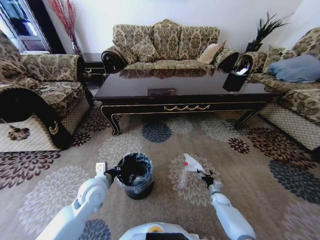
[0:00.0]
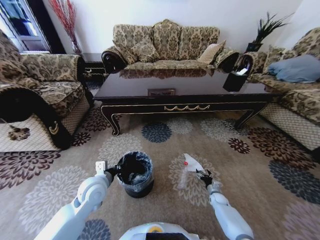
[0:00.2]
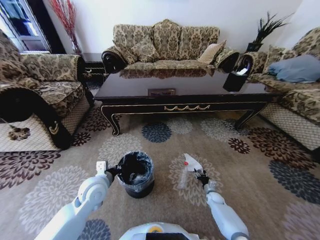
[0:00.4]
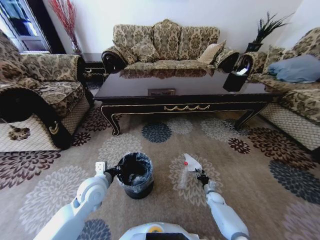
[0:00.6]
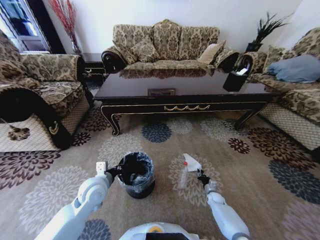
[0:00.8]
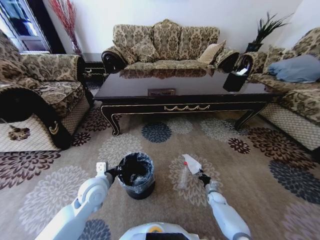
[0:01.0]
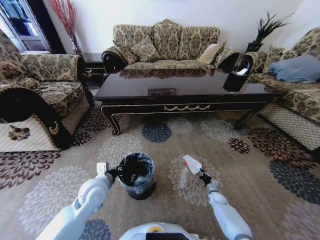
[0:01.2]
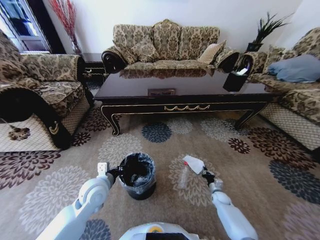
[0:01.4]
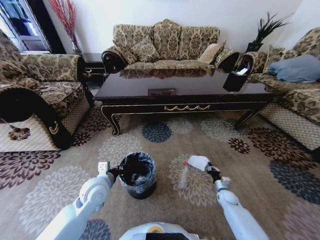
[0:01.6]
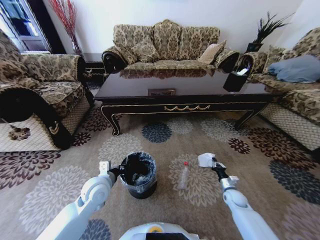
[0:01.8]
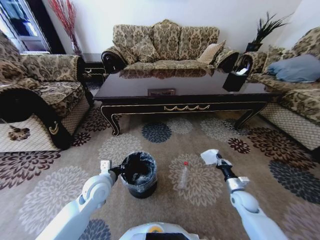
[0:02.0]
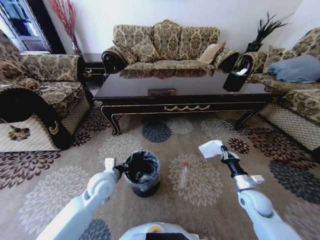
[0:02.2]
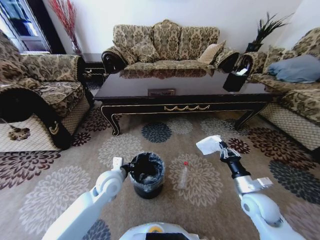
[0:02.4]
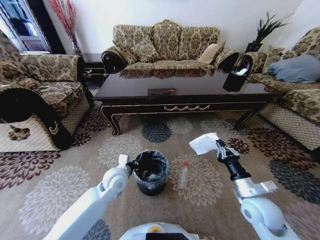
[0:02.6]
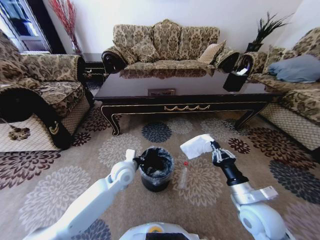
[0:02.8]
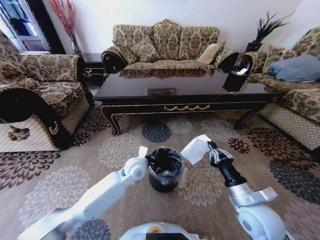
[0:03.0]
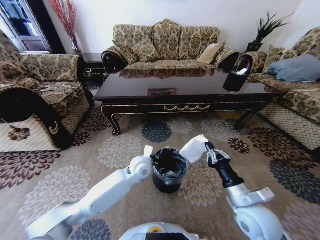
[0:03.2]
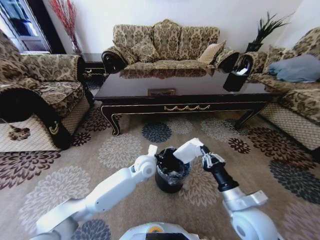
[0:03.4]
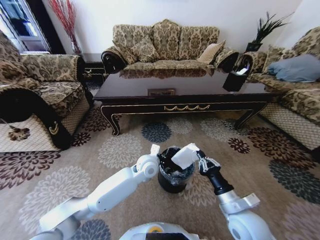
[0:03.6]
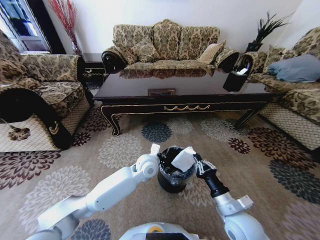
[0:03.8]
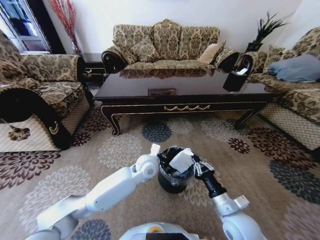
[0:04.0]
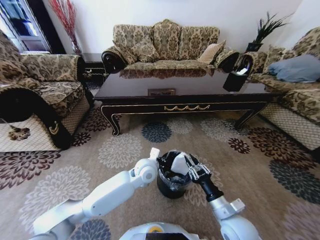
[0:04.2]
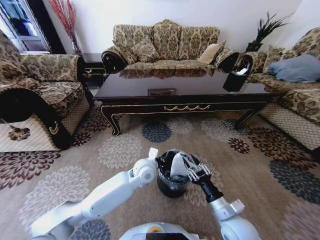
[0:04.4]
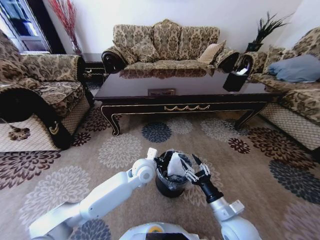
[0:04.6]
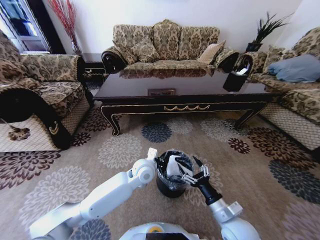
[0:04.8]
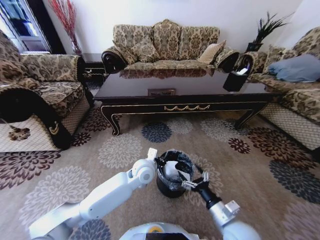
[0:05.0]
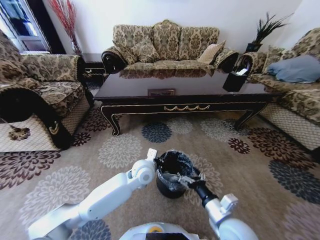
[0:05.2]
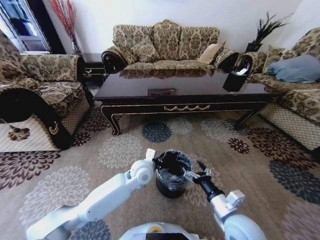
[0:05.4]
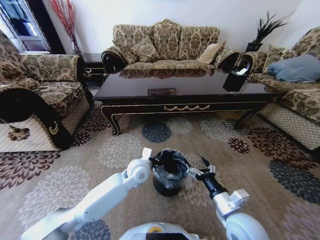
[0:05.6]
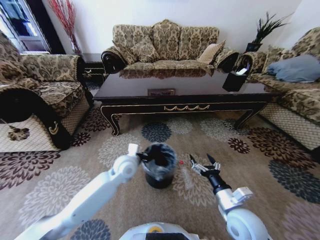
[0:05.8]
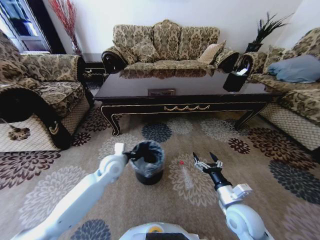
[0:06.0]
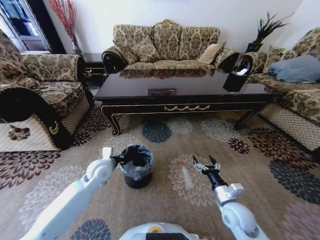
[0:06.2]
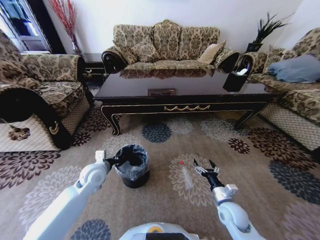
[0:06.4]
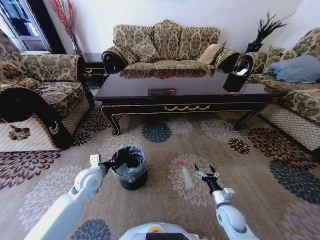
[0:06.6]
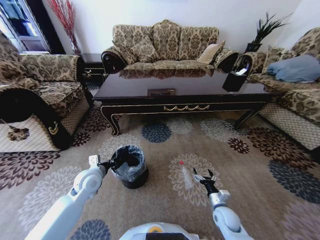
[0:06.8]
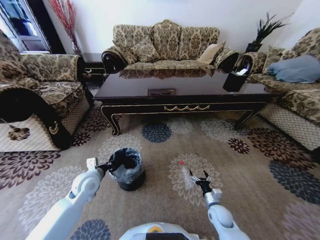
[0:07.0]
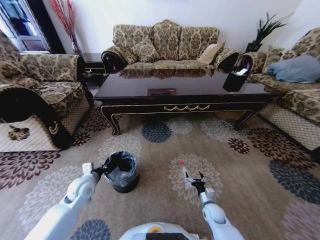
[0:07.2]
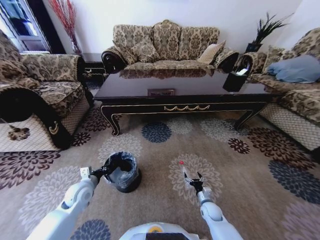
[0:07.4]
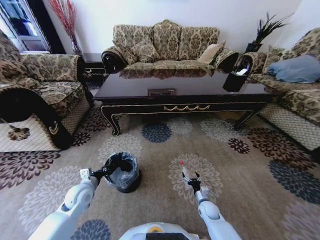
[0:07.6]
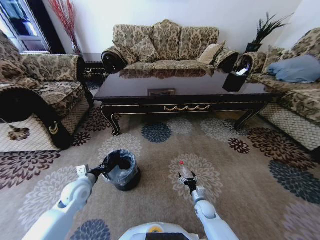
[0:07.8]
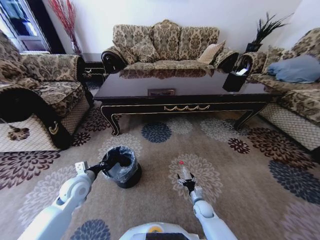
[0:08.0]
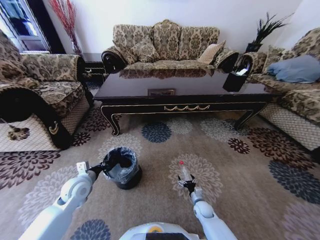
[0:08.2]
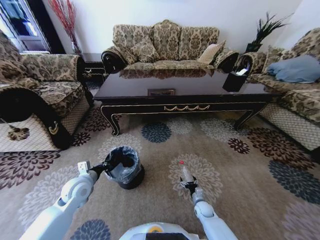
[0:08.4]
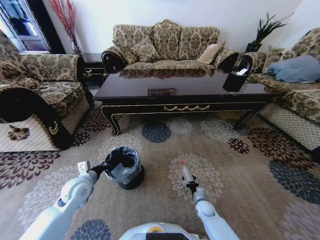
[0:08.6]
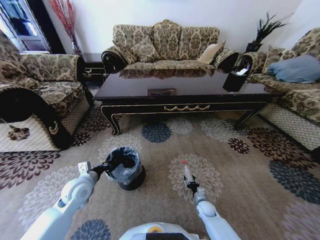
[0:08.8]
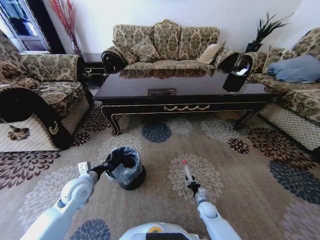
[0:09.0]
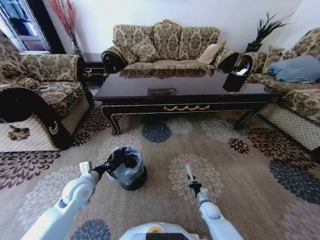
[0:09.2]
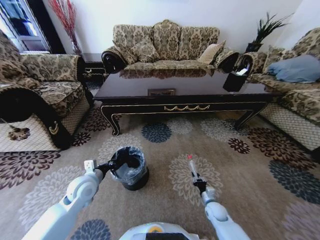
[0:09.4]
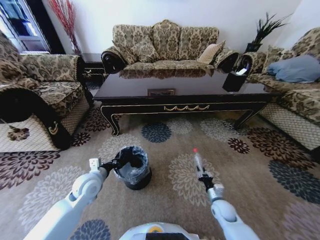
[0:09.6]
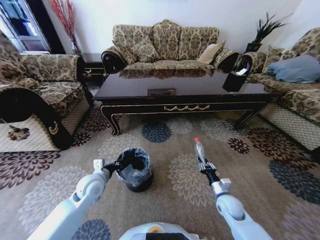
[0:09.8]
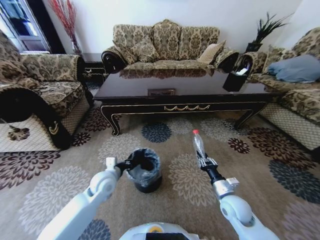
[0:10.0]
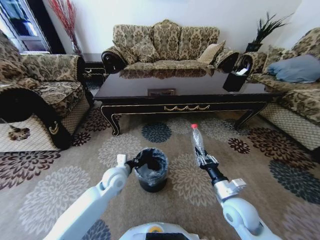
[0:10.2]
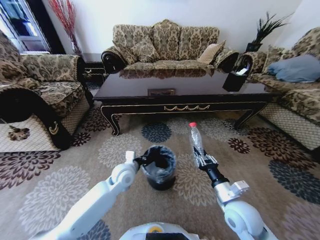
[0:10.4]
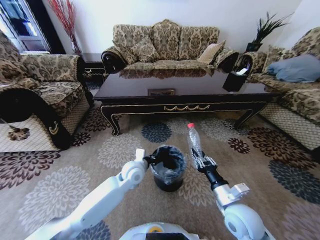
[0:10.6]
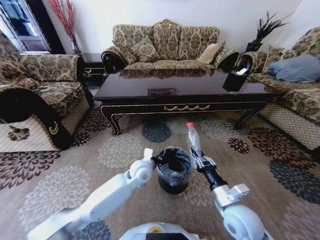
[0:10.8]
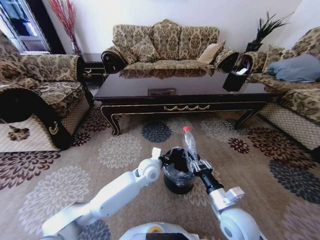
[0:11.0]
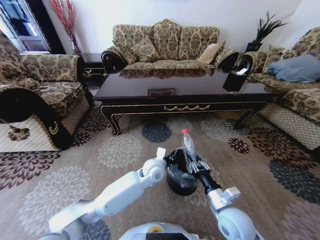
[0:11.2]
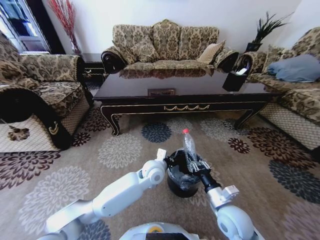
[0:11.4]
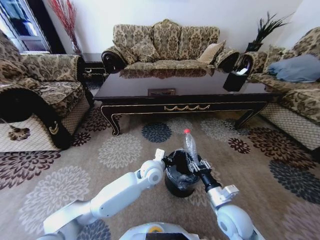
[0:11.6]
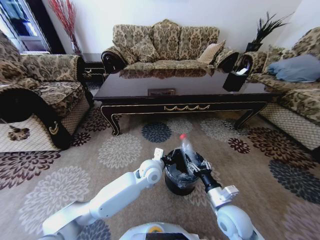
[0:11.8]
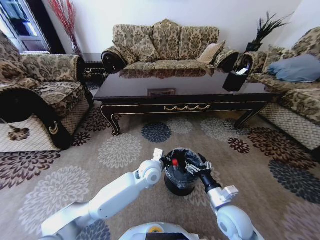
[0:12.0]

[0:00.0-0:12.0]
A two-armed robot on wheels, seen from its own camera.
Task of the whole recording: Move to the front of the table and pick up the trash from the floor, then place it into the trash bin.
0:00.0 to 0:01.6: The right gripper is displaced upward by approximately 5 cm, and closes up.
0:01.6 to 0:03.0: The left gripper heads to the right and forward, covering roughly 15 cm. The right gripper goes approximately 35 cm upward, backward and to the left.
0:03.0 to 0:04.4: The right gripper goes some 5 cm downward, and opens, while the left gripper travels to the right by some 5 cm.
0:04.4 to 0:06.0: The left gripper is displaced to the left by some 15 cm. Meanwhile the right gripper opens its fingers.
0:06.0 to 0:07.6: The right gripper is displaced downward by some 25 cm; the left gripper goes roughly 20 cm to the left, downward and backward.
0:07.6 to 0:09.0: The right gripper closes up, while the left gripper moves upward, some 5 cm.
0:09.0 to 0:10.4: The right gripper travels upward by roughly 30 cm. Meanwhile the left gripper heads to the right, covering approximately 15 cm.
0:10.4 to 0:12.0: The right gripper opens; the left gripper travels to the right by about 10 cm.

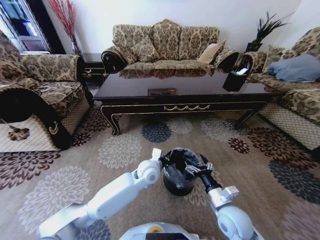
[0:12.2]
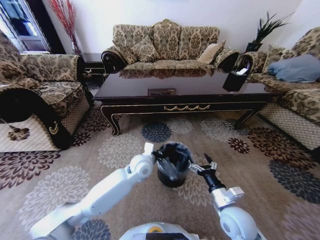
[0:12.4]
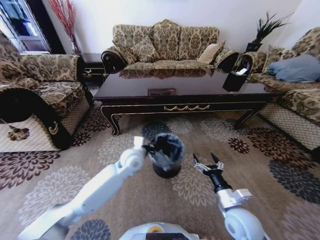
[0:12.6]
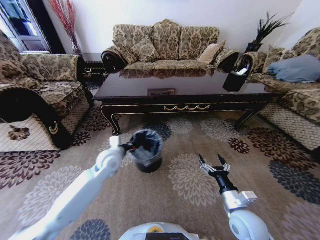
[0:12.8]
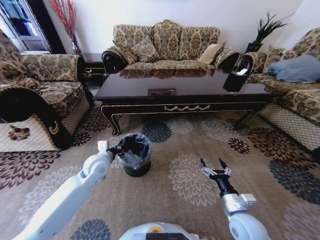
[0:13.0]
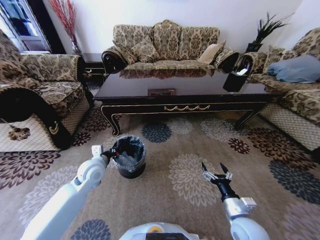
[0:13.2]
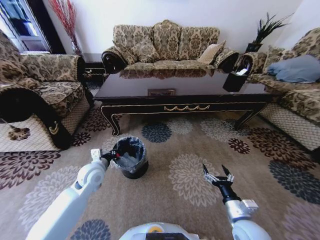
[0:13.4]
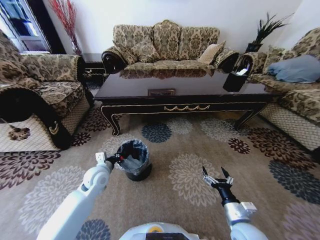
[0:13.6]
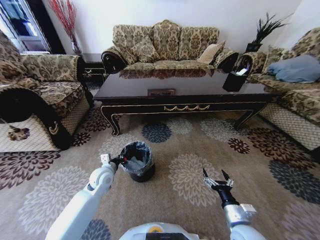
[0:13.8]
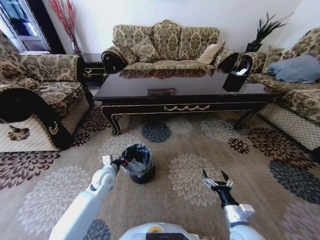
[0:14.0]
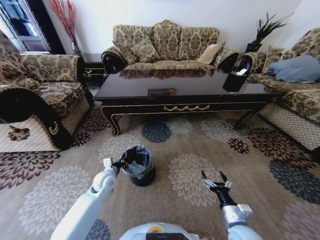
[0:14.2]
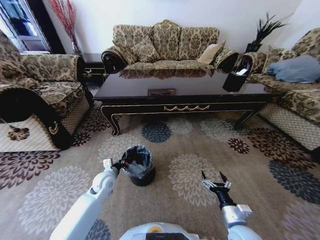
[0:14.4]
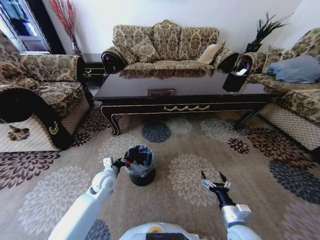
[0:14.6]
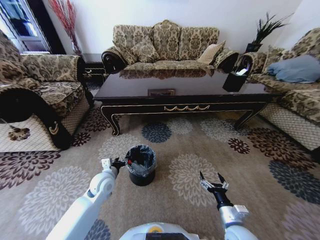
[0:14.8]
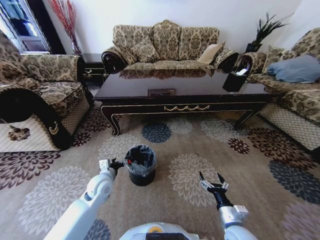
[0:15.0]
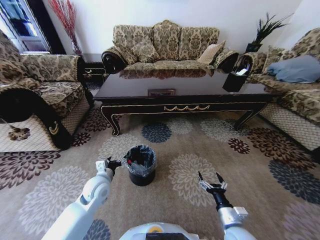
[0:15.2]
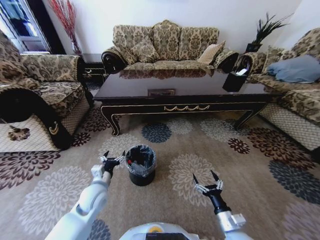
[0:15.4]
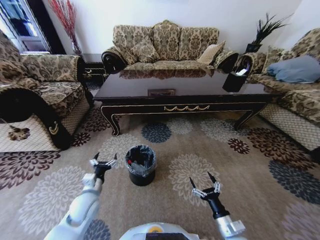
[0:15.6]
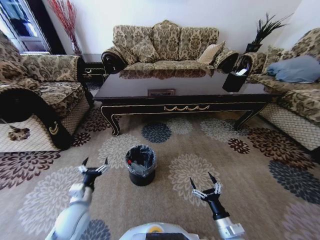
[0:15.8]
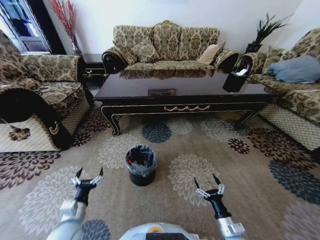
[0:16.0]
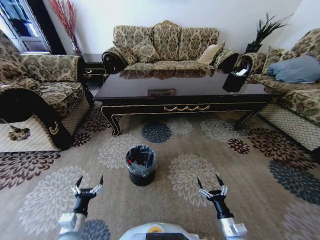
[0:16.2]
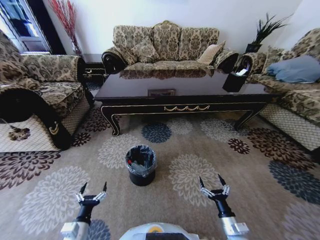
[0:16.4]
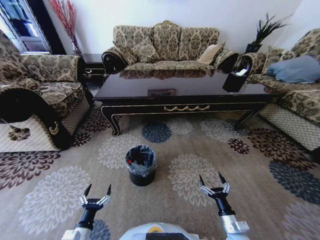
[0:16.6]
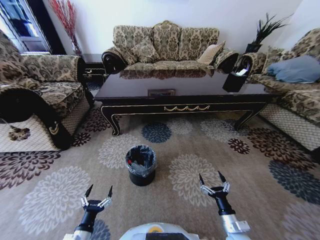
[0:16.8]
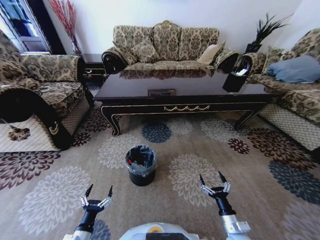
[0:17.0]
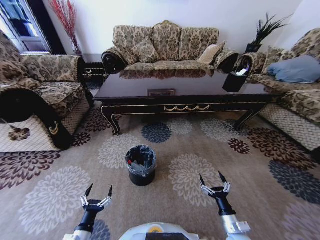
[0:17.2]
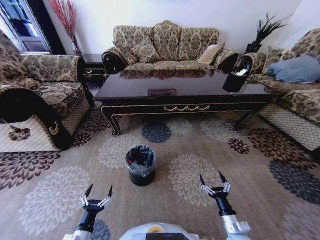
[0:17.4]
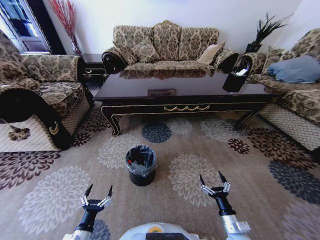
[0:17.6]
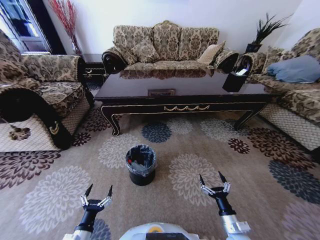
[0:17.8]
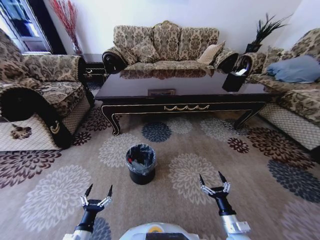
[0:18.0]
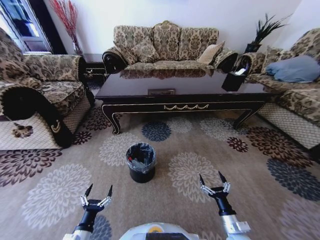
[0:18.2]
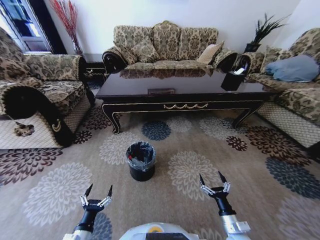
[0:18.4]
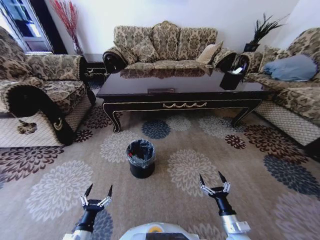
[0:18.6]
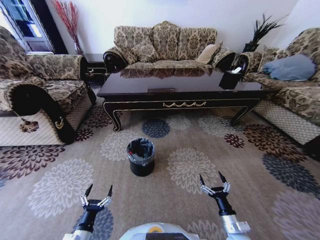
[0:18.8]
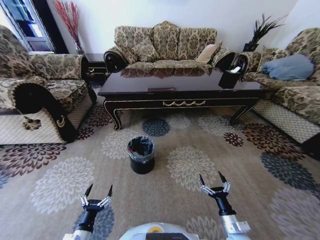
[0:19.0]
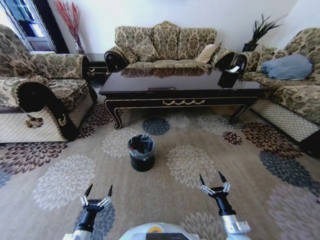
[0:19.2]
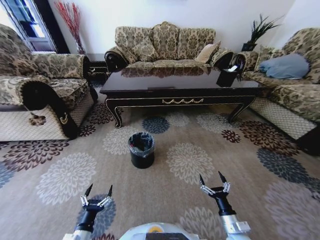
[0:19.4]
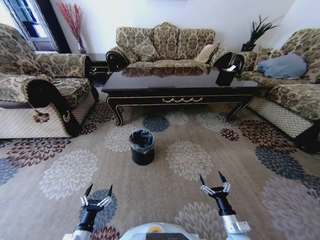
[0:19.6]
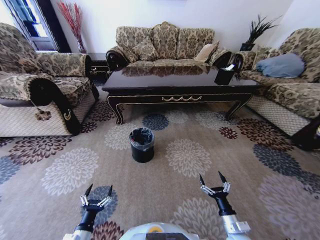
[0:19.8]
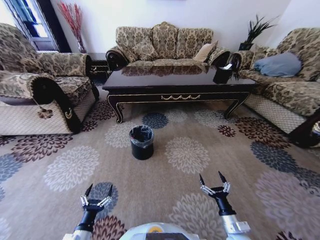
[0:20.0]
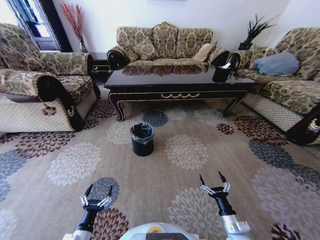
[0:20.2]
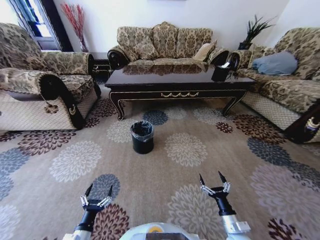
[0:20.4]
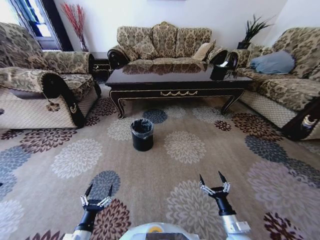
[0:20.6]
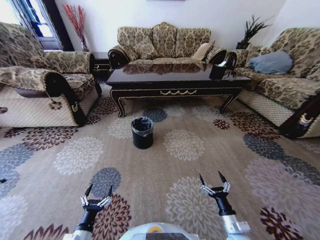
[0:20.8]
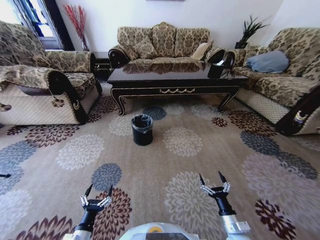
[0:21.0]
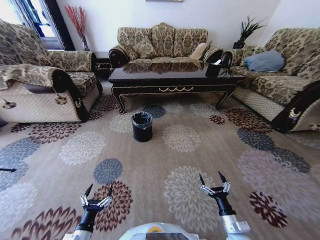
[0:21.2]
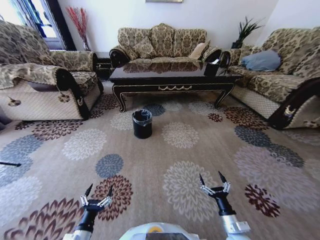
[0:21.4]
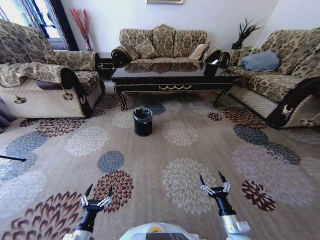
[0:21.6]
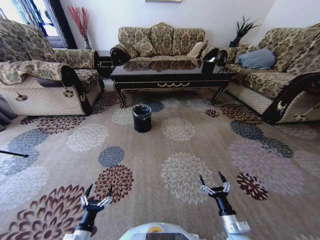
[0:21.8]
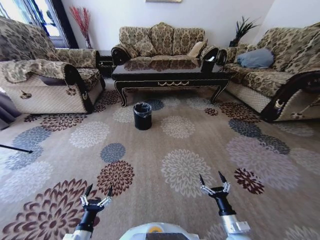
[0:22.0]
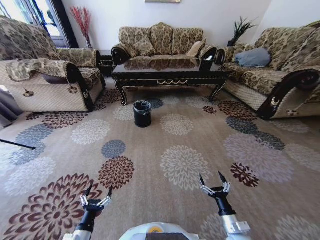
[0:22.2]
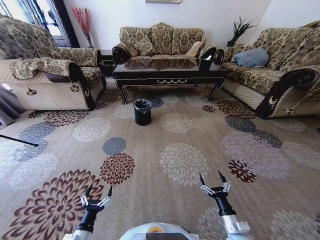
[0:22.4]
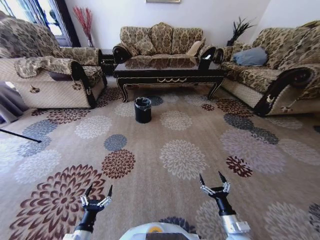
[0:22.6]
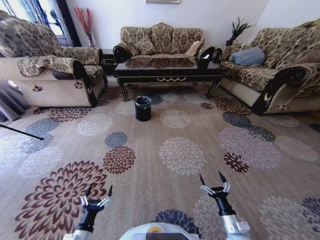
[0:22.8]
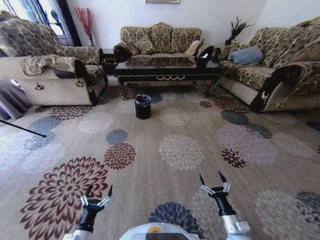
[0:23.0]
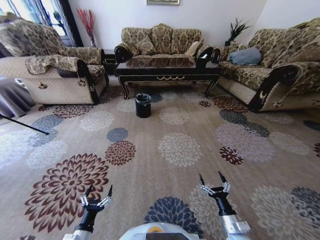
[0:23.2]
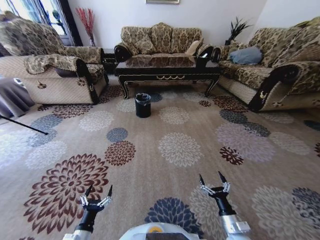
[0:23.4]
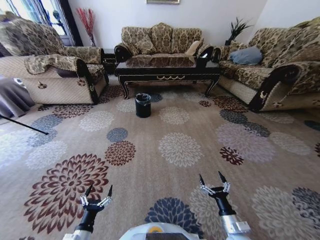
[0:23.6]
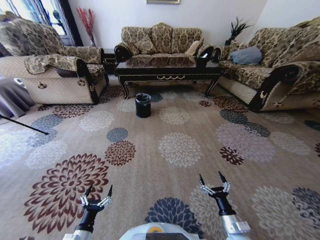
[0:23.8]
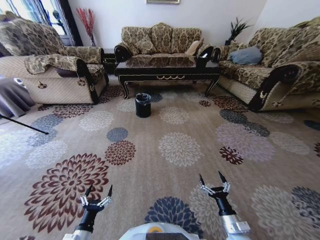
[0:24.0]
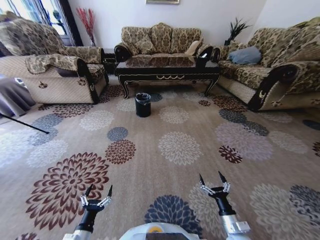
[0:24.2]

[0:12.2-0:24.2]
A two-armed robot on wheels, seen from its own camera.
Task of the whole recording: Move to the front of the table and pick up the trash from the floor, then place it into the trash bin.
0:12.2 to 0:13.8: The right gripper shifts by approximately 10 cm, while the left gripper shifts some 20 cm to the left.
0:13.8 to 0:15.2: The left gripper shifts roughly 5 cm backward, and opens up.
0:15.2 to 0:16.6: The right gripper moves downward, some 5 cm. Meanwhile the left gripper heads backward and downward, covering about 25 cm.
0:16.6 to 0:18.2: Both grippers stay about where they are.
